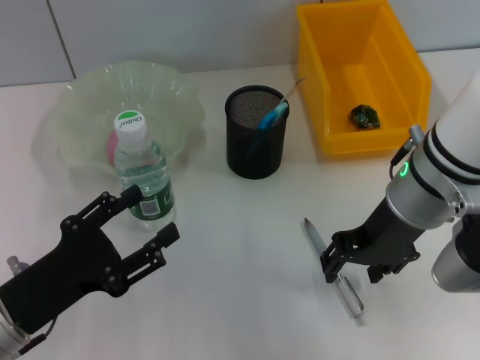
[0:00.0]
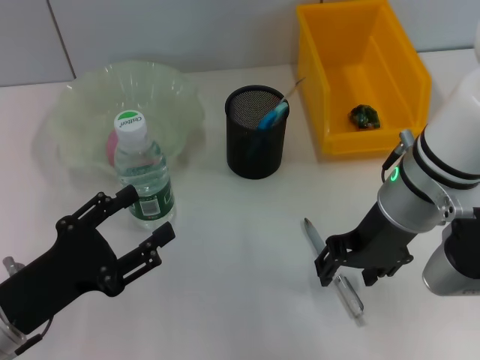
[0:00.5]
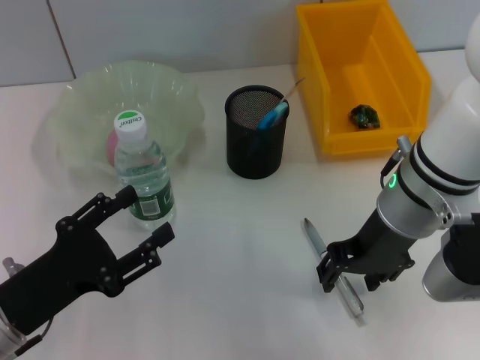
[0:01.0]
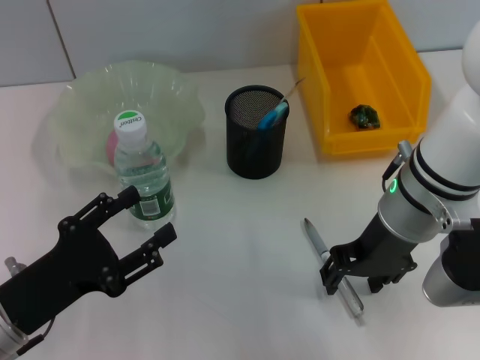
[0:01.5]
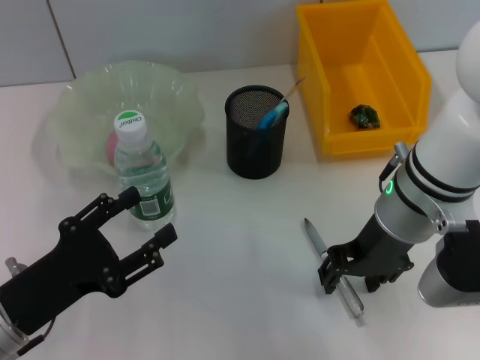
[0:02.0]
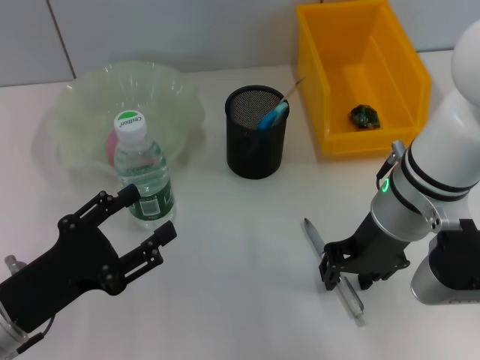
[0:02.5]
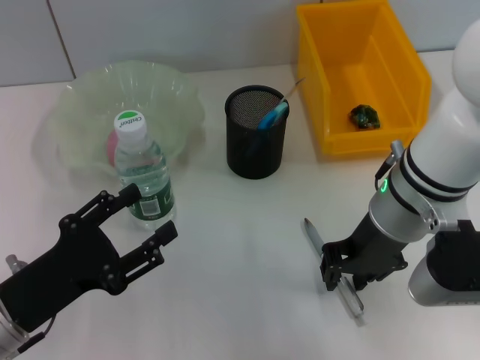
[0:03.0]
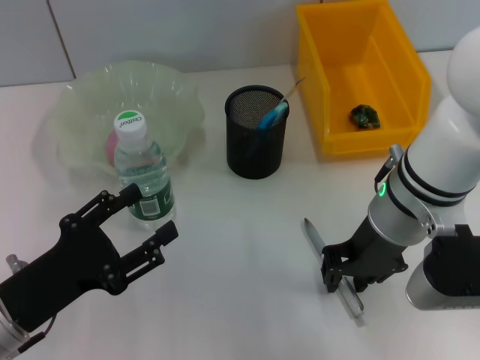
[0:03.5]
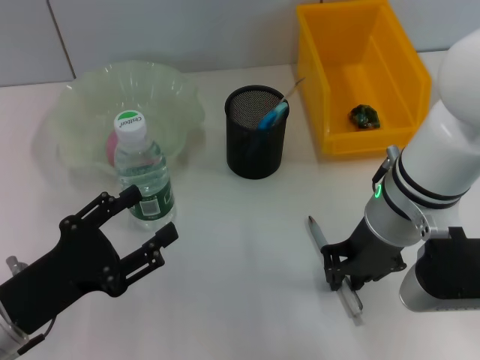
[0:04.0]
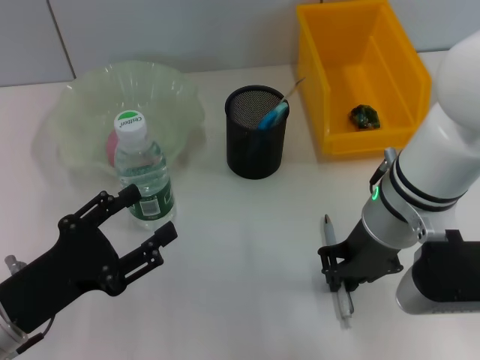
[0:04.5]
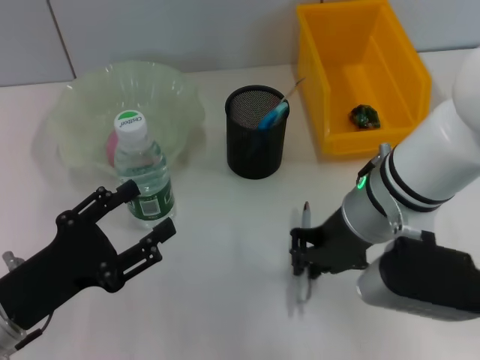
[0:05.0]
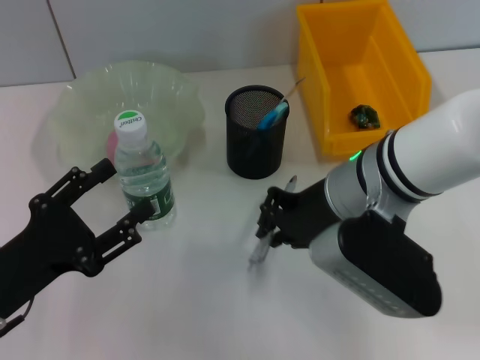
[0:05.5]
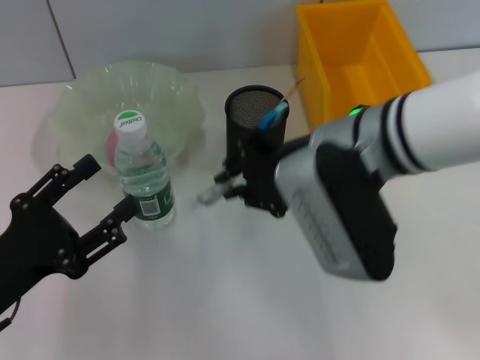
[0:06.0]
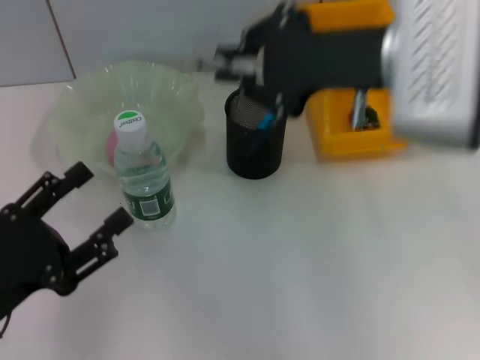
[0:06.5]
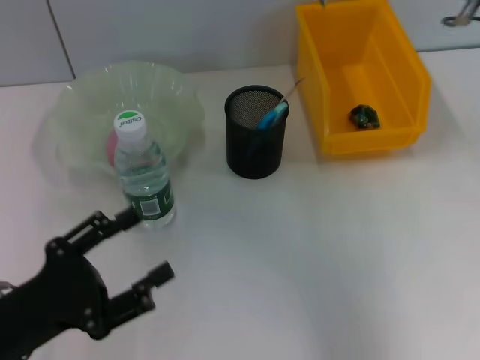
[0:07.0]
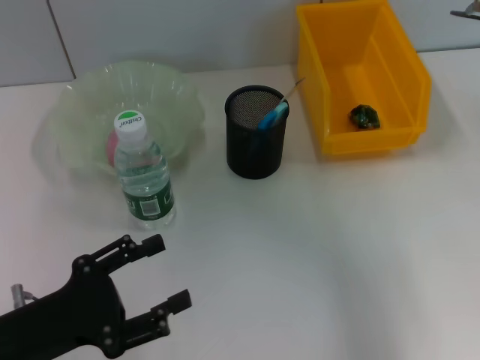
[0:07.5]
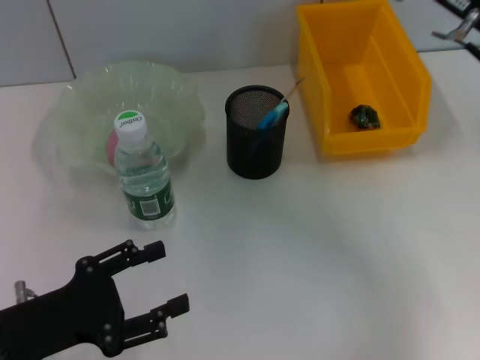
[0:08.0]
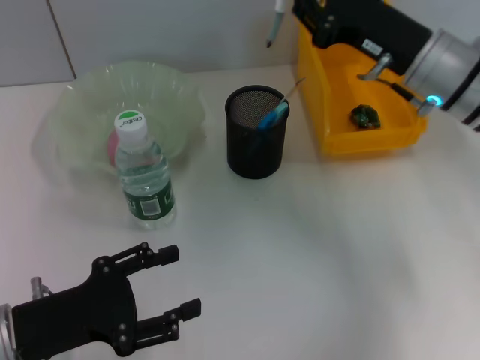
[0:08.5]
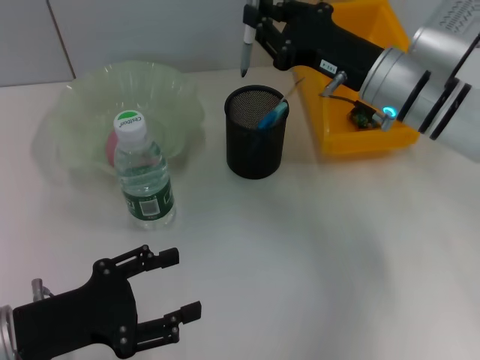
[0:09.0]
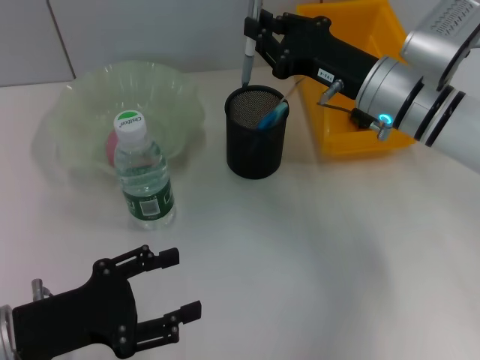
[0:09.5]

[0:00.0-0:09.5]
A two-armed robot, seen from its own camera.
Step, 0:00.0 to 0:04.5: Grab the gray spring-action pen with the right hand.
0:00.0 to 0:02.0: The grippers move only a little.
0:02.0 to 0:04.0: The right gripper closes up.
0:05.5 to 0:07.5: The right gripper goes about 15 cm to the right and upward.
0:07.5 to 0:09.5: The right gripper heads downward and to the left, covering about 15 cm.

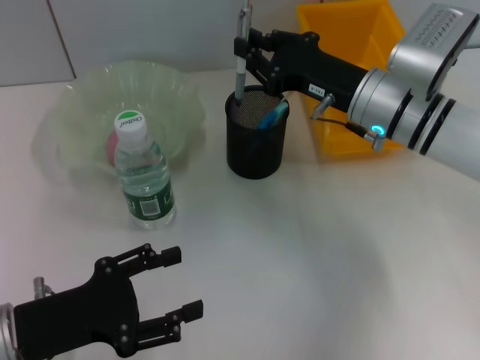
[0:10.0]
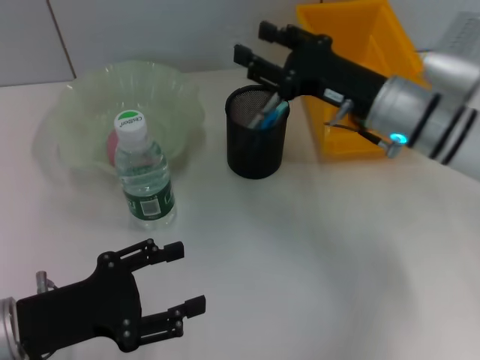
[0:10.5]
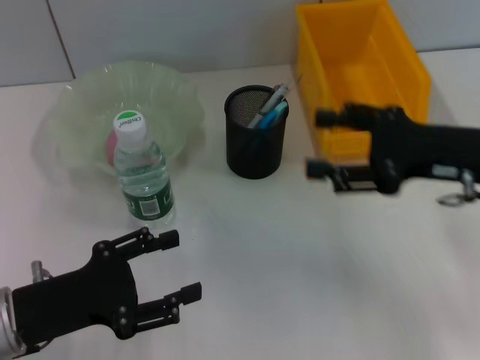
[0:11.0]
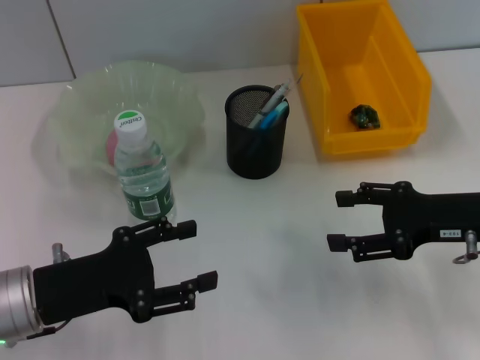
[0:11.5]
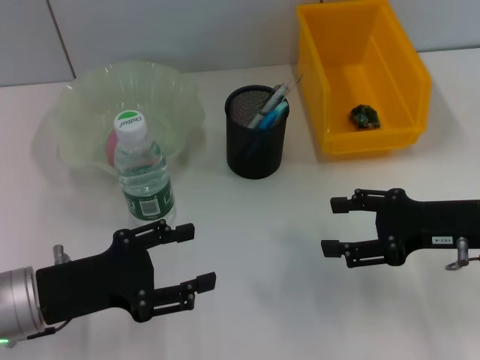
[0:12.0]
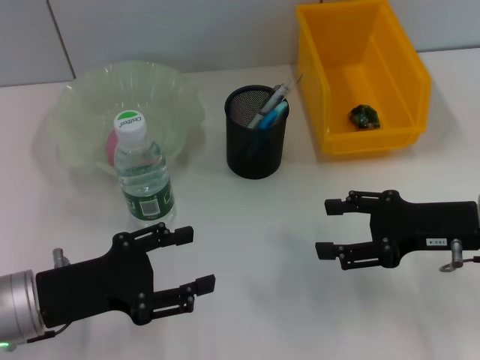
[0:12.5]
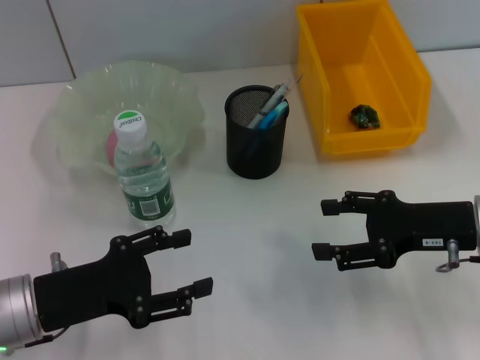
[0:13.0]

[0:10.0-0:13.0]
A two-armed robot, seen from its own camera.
0:10.0 to 0:11.5: The right gripper travels to the right and backward by some 15 cm, and opens its fingers.
0:11.5 to 0:13.0: The grippers stay close to where they were, moving slightly.

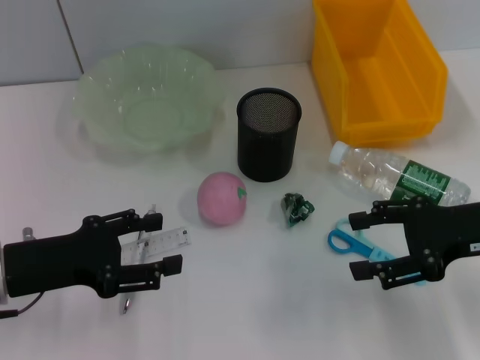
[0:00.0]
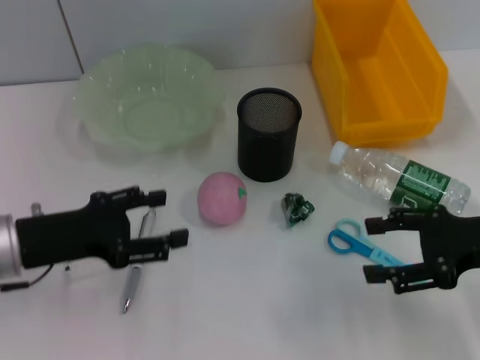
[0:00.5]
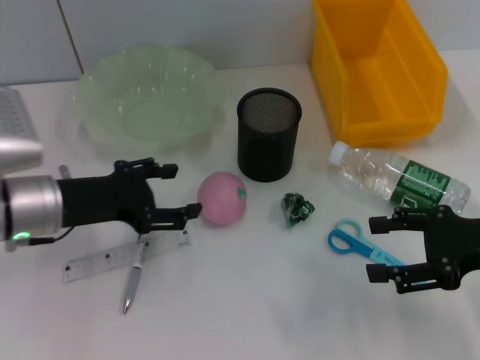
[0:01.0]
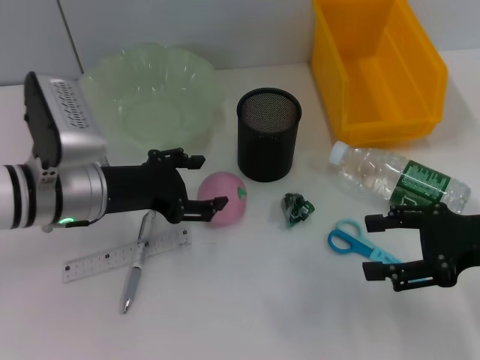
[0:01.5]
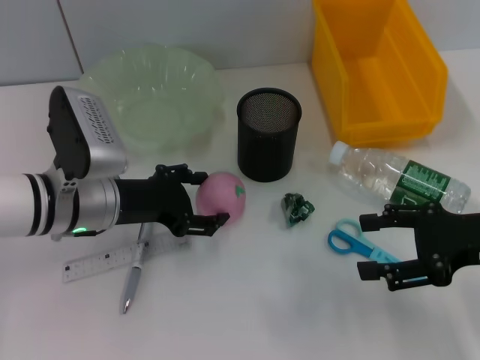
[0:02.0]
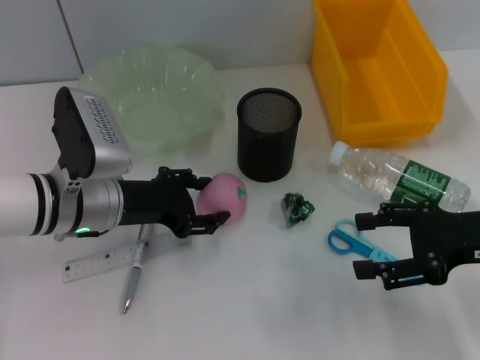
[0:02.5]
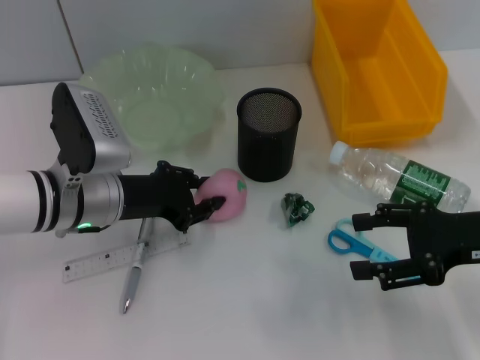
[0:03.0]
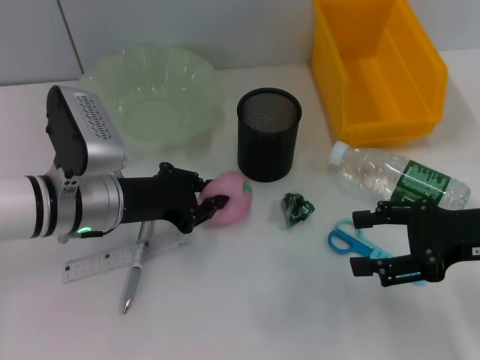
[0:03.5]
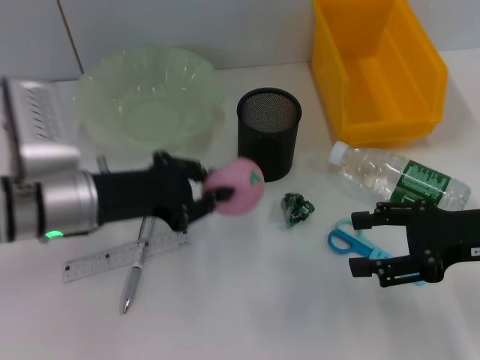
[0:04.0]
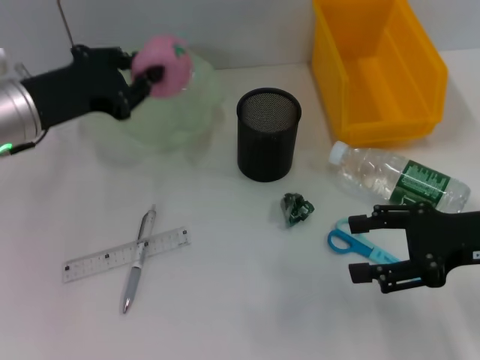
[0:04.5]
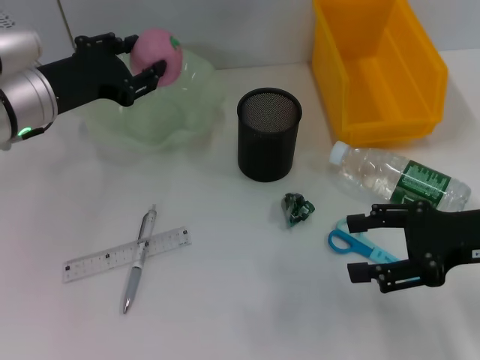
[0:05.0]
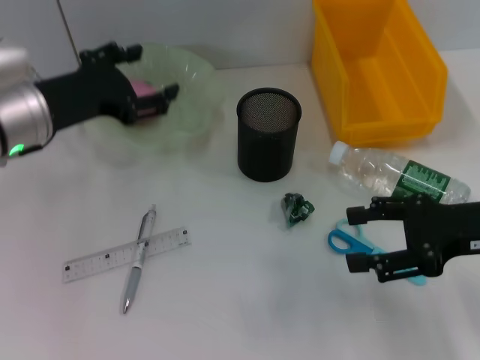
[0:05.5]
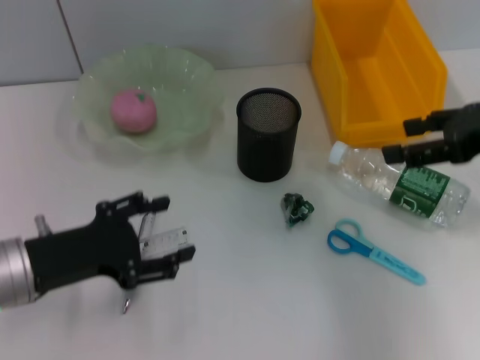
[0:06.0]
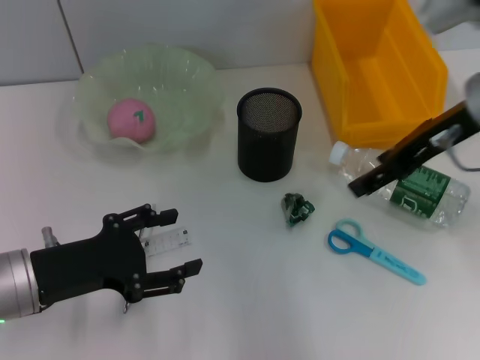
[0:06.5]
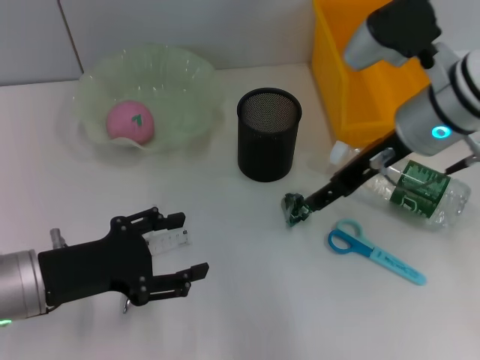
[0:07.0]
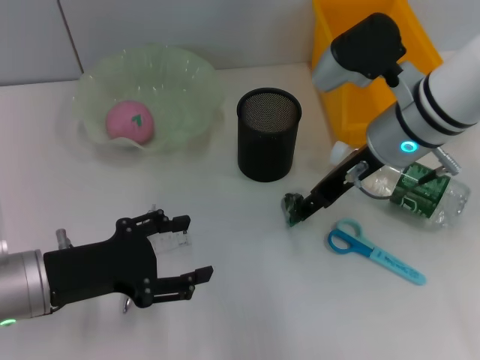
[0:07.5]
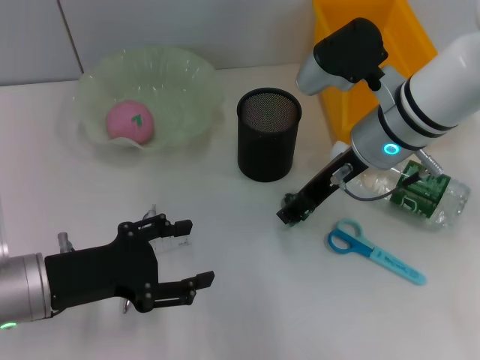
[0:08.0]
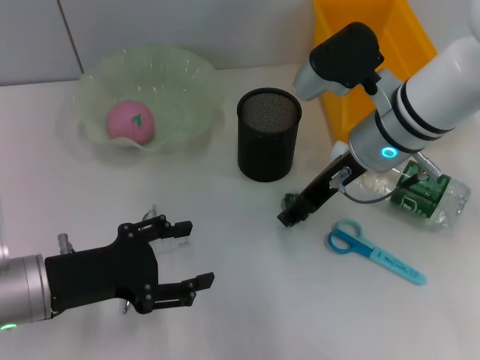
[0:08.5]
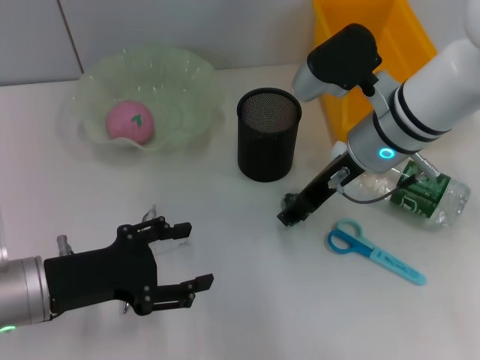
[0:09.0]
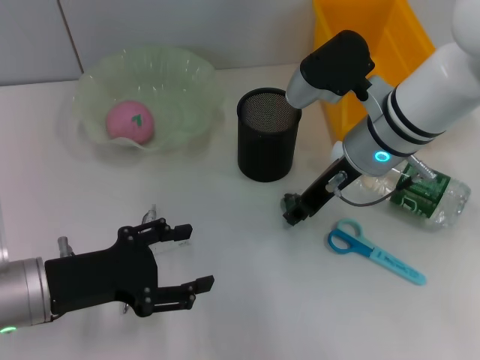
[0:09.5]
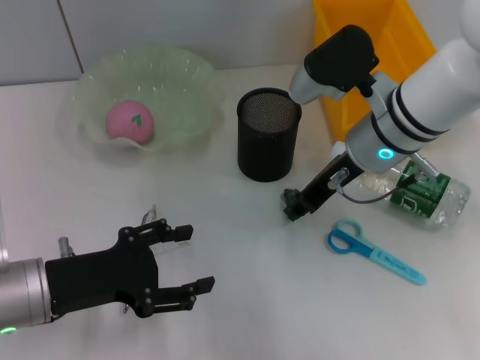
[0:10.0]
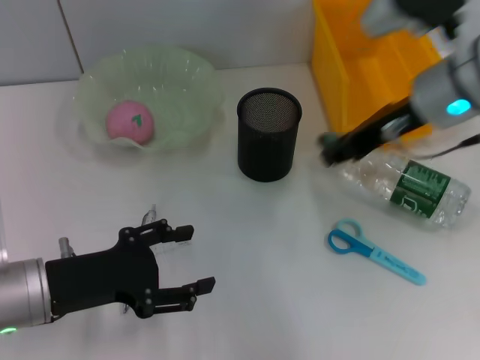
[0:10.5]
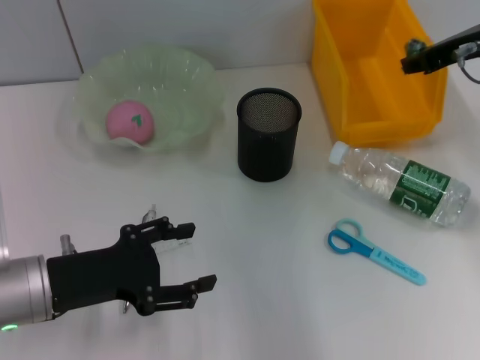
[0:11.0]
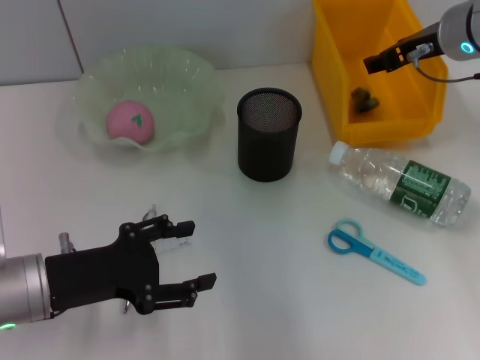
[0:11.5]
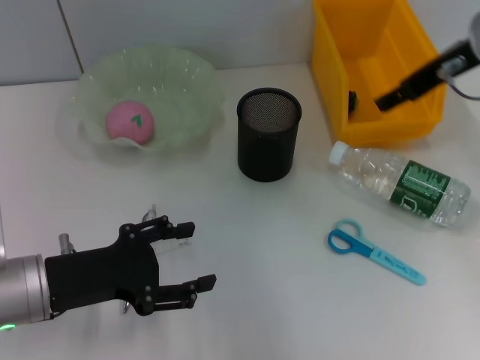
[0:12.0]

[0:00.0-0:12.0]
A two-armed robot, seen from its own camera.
Step, 0:00.0 to 0:02.5: Grab the peach with the left hand.
Step, 0:03.0 to 0:05.0: Place the peach into the fruit bowl with the left hand.
Step, 0:05.5 to 0:09.5: Grab the plastic with the right hand.
Step, 0:10.0 to 0:11.5: Place the plastic into the trash can with the right hand.
0:00.0 to 0:02.0: The left gripper travels to the right and forward by roughly 10 cm.
0:02.0 to 0:04.0: The left gripper changes place by about 5 cm, and closes.
0:04.0 to 0:06.0: The left gripper moves backward, approximately 5 cm, and opens up. The right gripper is displaced upward and forward by about 10 cm.
0:06.0 to 0:08.0: The right gripper moves to the left and downward, approximately 15 cm.
0:08.0 to 0:10.0: The right gripper closes up.
0:10.0 to 0:12.0: The right gripper heads upward and to the right, covering roughly 15 cm, and opens up.

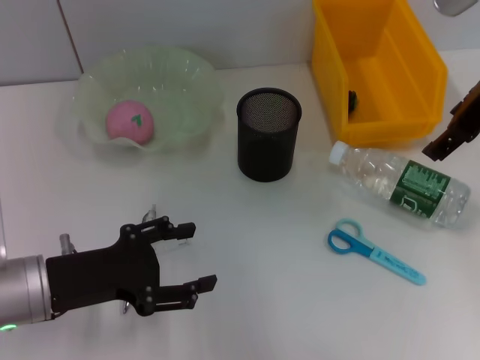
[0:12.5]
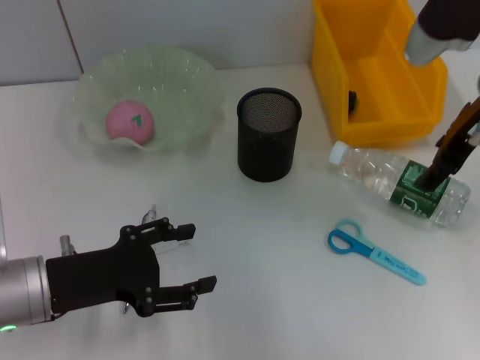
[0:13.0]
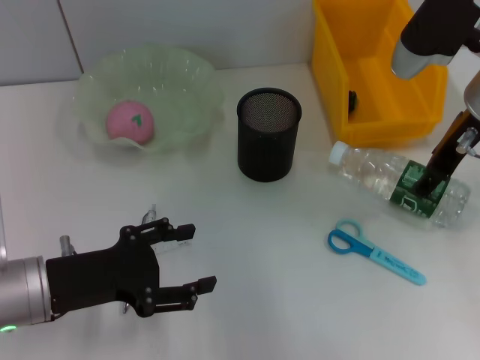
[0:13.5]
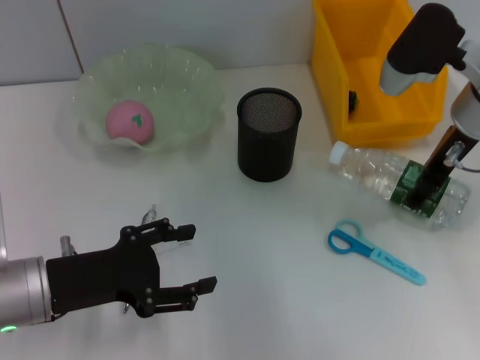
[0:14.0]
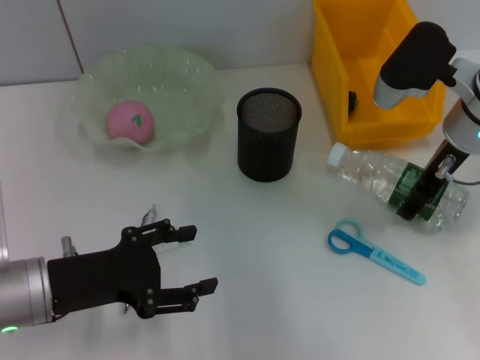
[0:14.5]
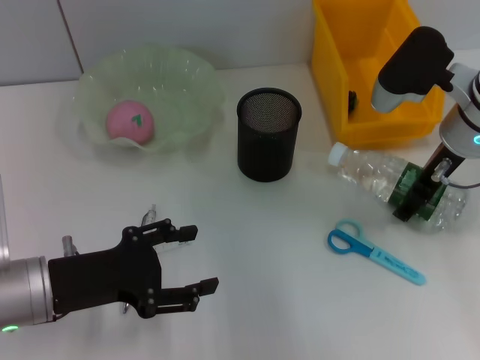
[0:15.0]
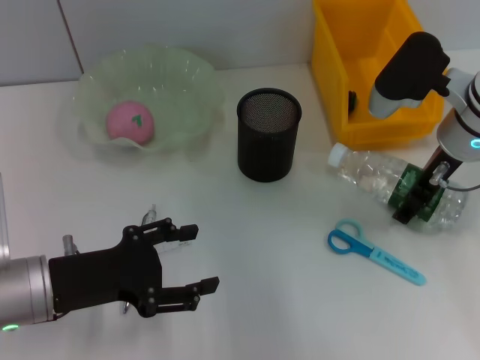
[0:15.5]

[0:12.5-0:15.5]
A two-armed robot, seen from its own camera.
0:12.5 to 0:14.0: The right gripper heads downward, covering about 10 cm.
0:14.0 to 0:15.5: The grippers move only a little.
